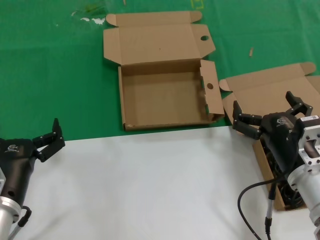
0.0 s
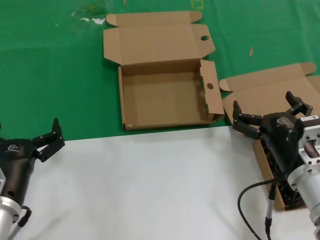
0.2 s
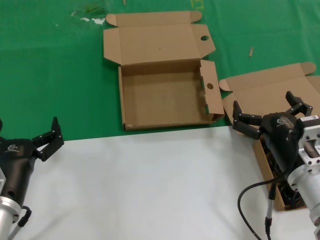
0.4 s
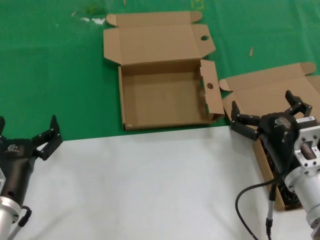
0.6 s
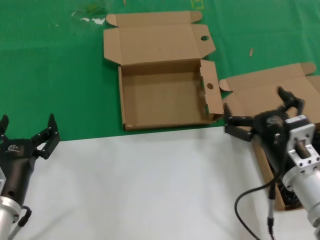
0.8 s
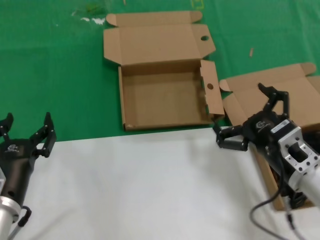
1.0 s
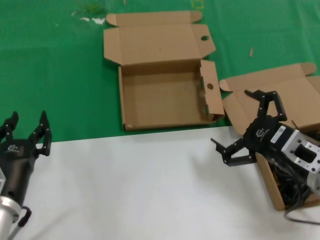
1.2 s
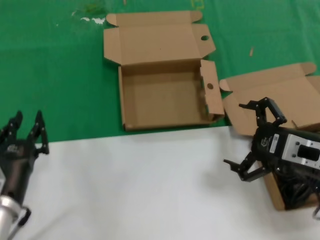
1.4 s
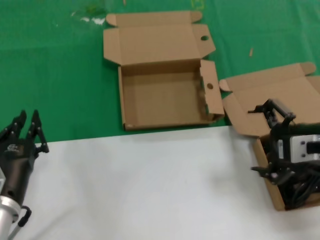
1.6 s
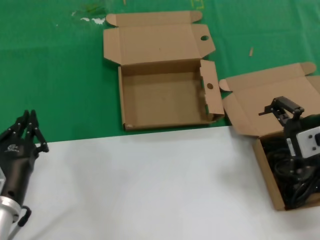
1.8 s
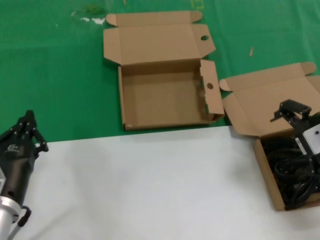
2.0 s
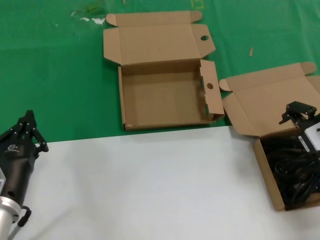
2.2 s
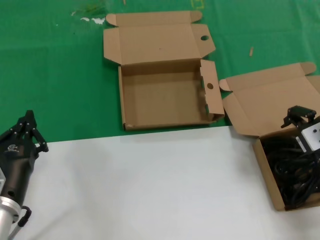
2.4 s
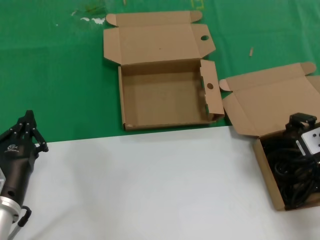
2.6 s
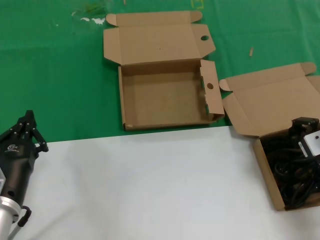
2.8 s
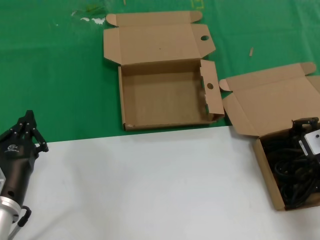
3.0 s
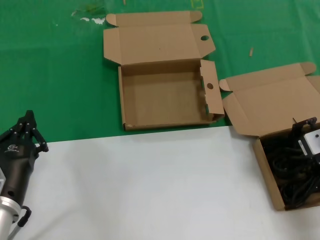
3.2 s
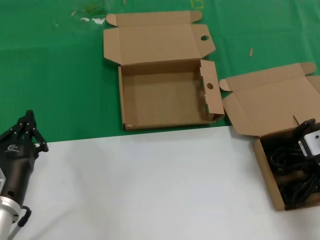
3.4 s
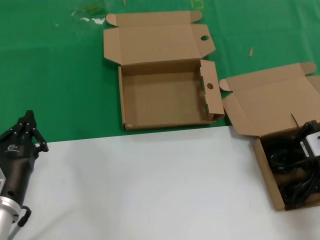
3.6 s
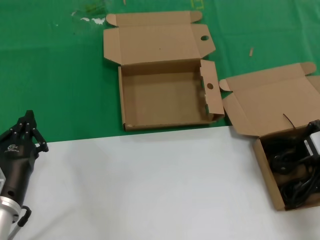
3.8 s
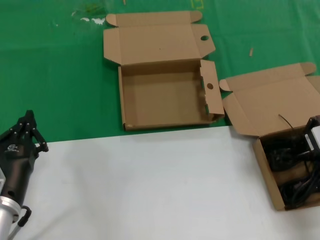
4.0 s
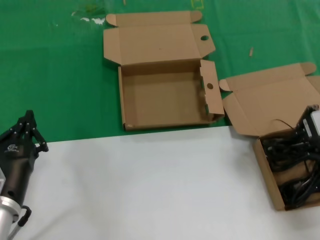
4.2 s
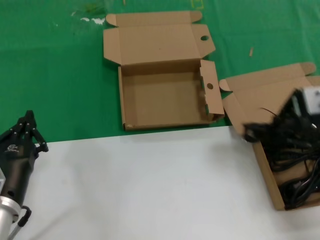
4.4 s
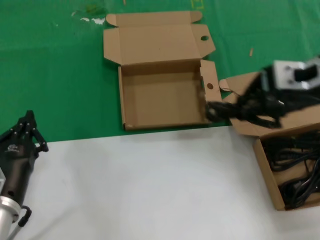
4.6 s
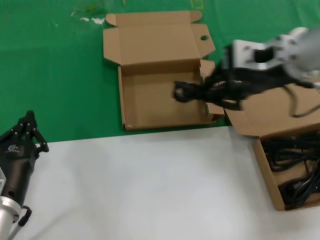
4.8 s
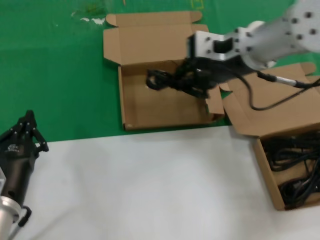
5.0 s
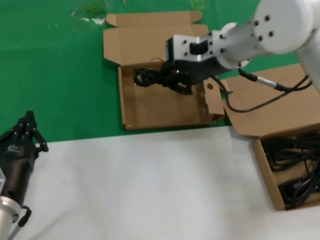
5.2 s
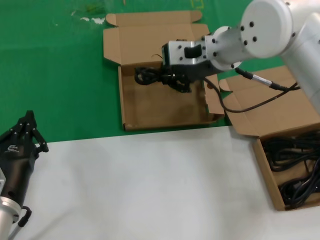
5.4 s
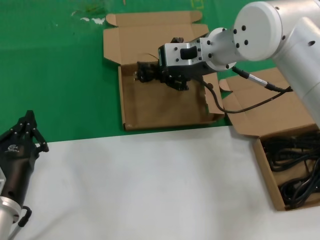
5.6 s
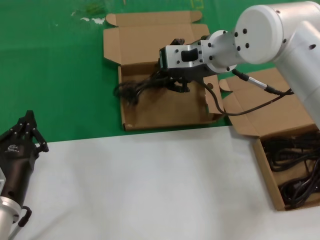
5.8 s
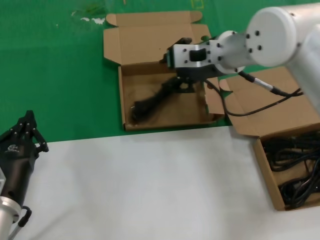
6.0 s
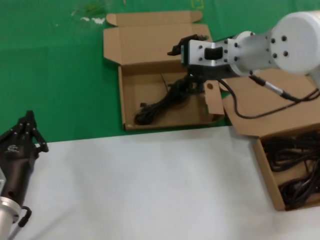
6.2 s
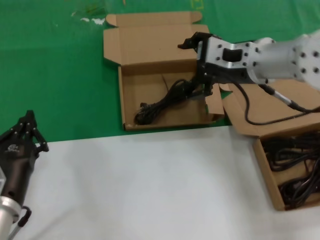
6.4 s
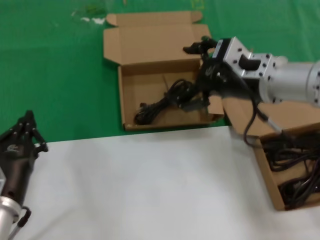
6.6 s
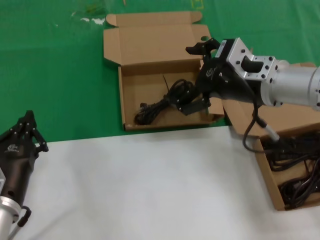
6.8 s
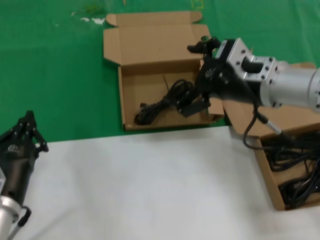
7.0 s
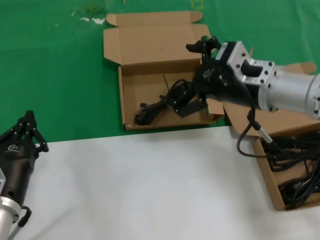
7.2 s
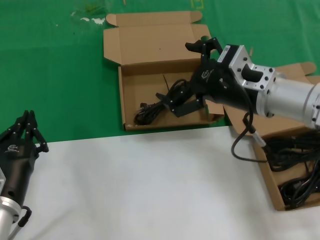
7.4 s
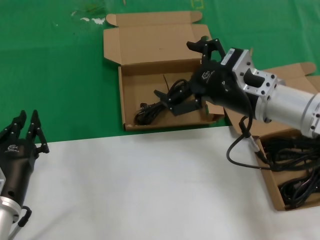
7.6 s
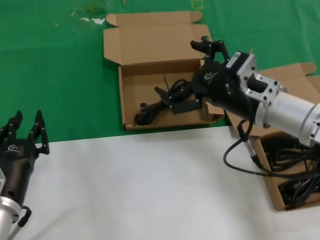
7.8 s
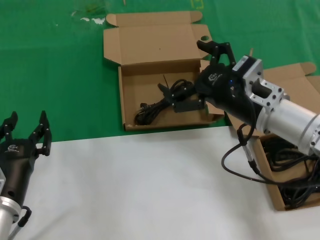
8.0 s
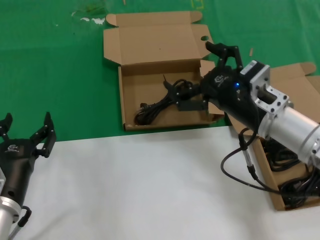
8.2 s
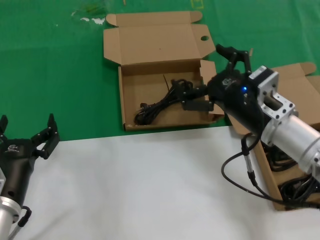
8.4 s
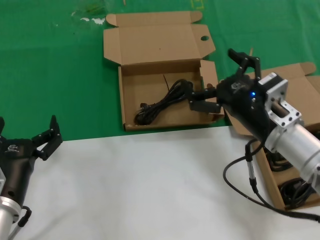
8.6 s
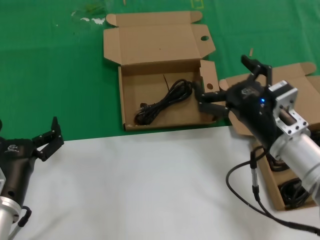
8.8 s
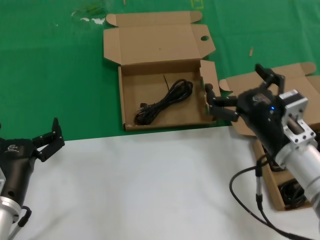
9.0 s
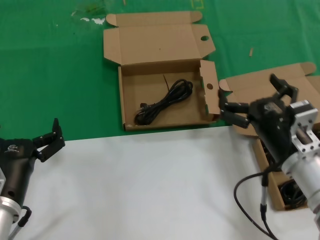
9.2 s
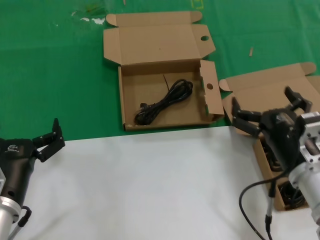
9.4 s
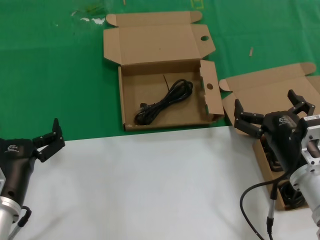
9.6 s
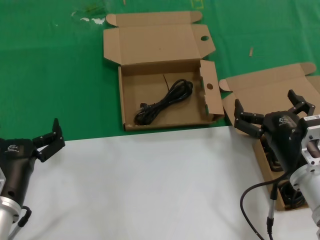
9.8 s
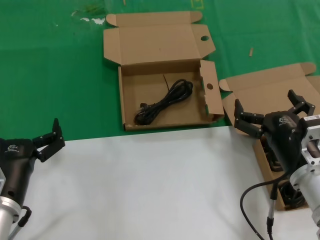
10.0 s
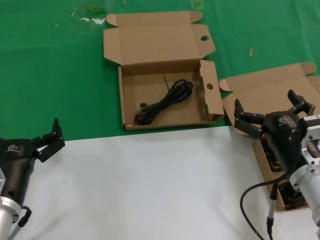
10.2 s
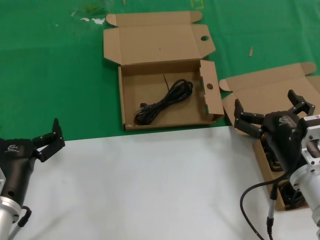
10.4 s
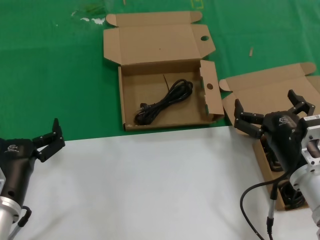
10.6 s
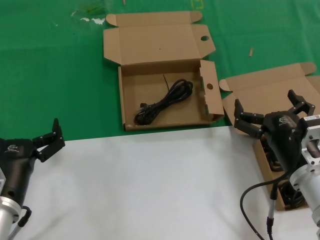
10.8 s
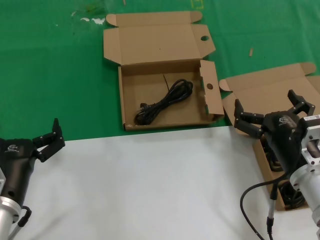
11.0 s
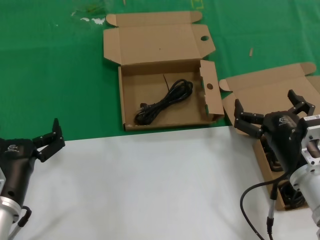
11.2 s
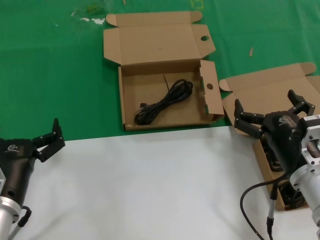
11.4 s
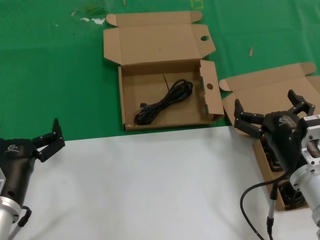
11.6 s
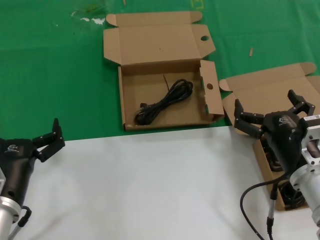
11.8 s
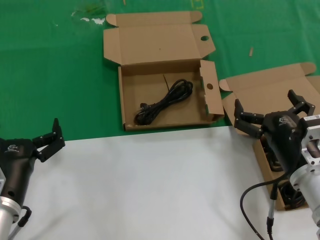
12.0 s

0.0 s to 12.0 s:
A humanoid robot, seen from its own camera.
Task of the whole recording: take the parts from the box containing them and put them into an empty box.
Step, 0.0 to 3.4 s: Grasp the data cable.
Step, 3.6 to 6.2 s: Place the data cable in the another box.
0.0 to 1.6 s: The right hand moves upward and to the right, about 15 cm.
1.6 to 3.0 s: The right hand moves forward, about 10 cm.
3.0 to 4.4 s: The right hand shifts some 10 cm upward.
4.4 to 6.0 s: The right hand heads to the left and forward, covering approximately 20 cm.
6.0 to 7.6 s: The right hand travels backward, to the right and downward by approximately 15 cm.
7.6 to 9.0 s: The right hand moves downward and backward, approximately 10 cm.
9.0 to 10.4 s: The right hand changes place by some 5 cm.
10.4 to 12.0 s: Both hands stay about where they are.

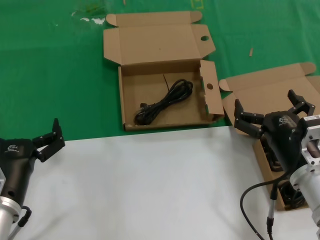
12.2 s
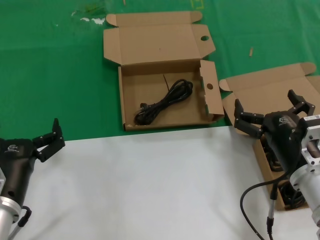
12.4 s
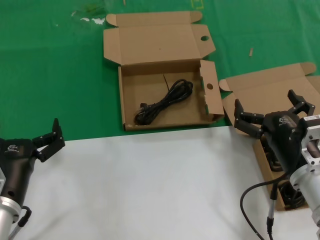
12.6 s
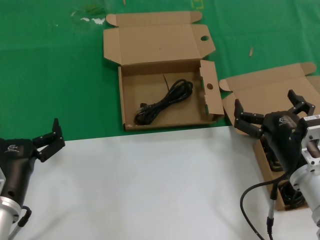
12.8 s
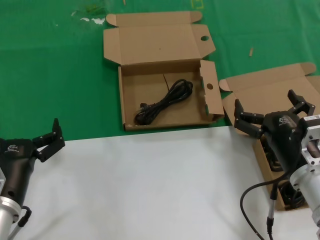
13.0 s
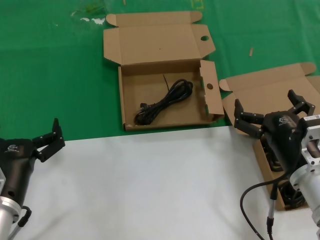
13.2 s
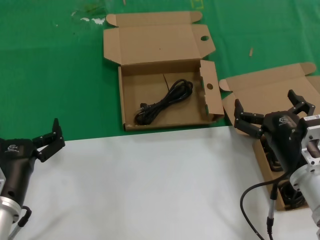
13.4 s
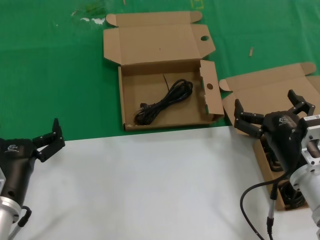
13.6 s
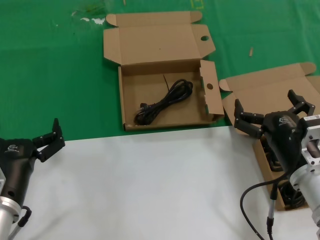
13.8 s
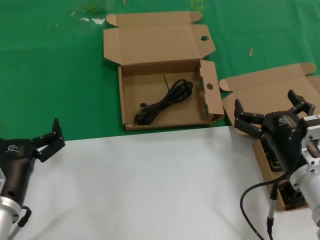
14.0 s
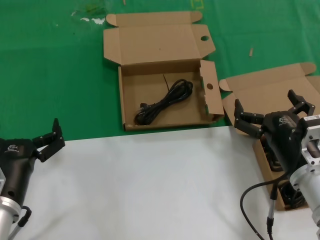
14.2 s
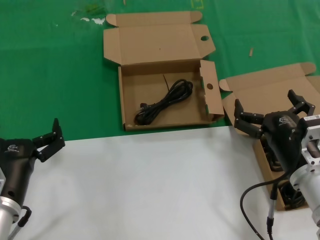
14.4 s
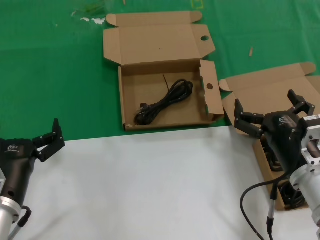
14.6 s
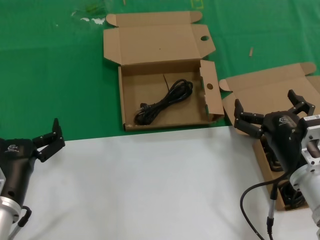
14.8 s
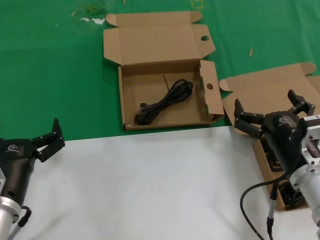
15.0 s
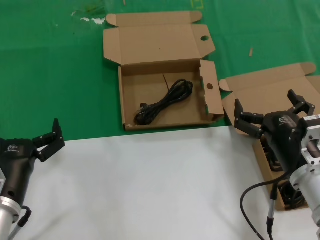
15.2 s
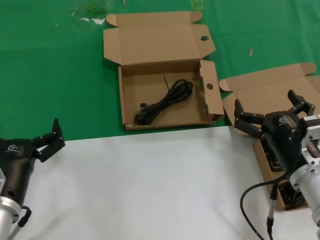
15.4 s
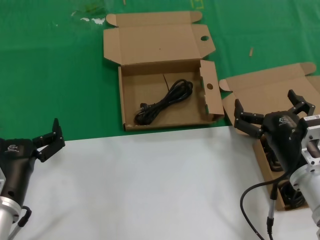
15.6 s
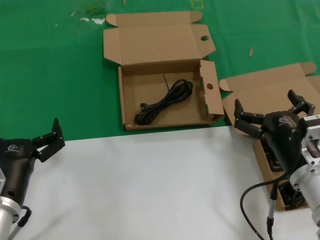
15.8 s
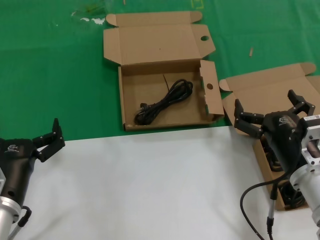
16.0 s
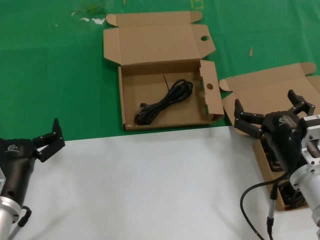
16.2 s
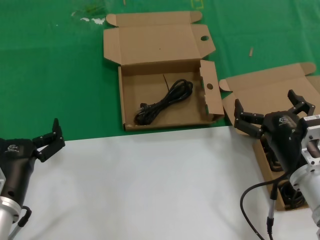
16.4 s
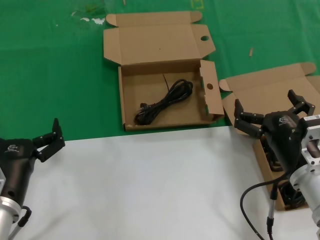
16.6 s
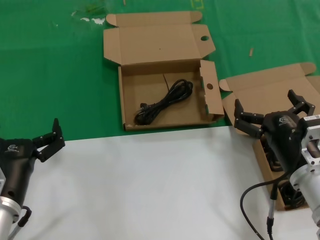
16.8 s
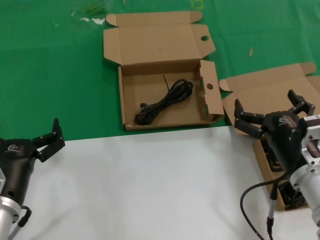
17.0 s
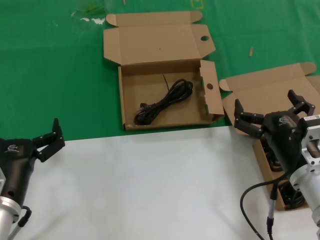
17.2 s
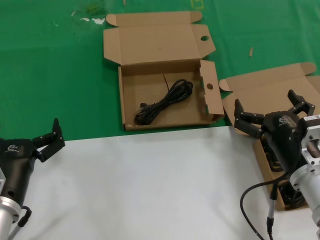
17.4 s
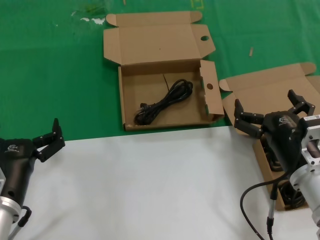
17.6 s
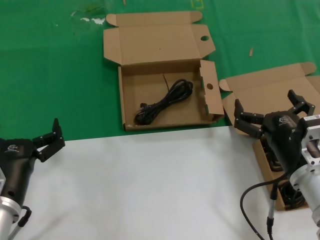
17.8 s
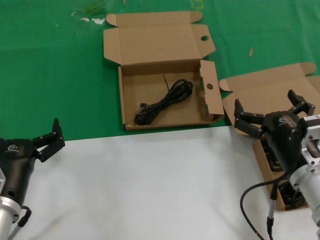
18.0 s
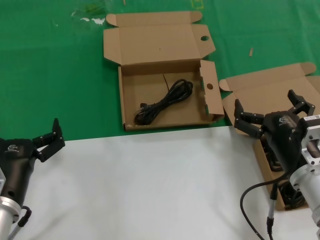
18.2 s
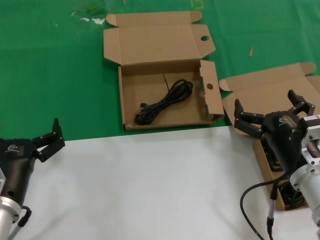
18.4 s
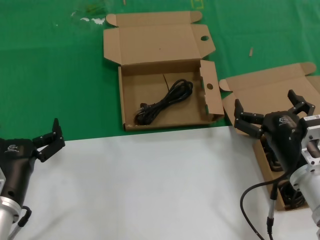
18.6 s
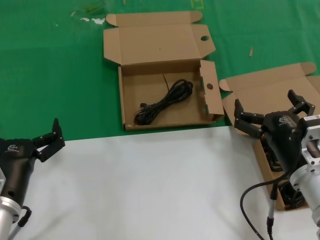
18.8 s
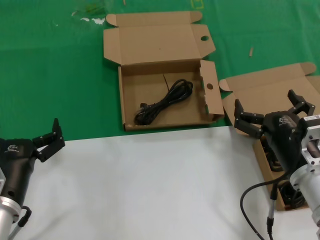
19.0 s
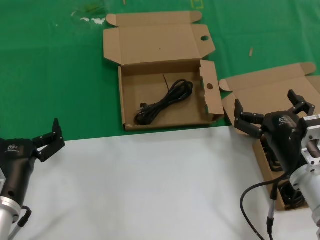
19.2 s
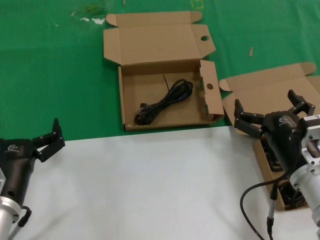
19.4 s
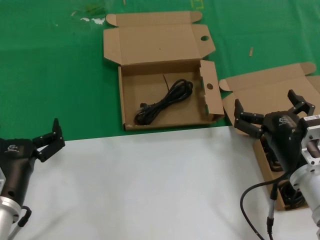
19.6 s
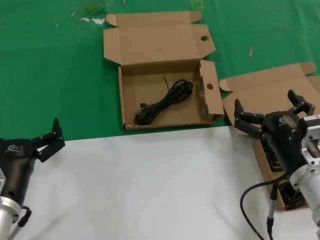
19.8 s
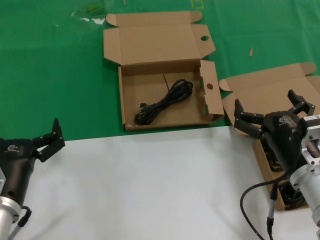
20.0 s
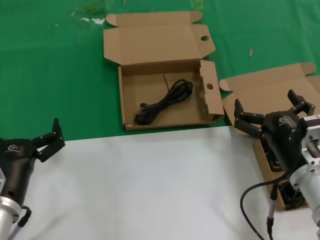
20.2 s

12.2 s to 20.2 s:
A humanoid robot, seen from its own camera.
Task of the whole recording: take the parts from the box containing them and put them into an empty box.
12.2 to 20.2 s: Both hands stay put.

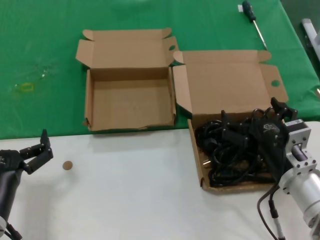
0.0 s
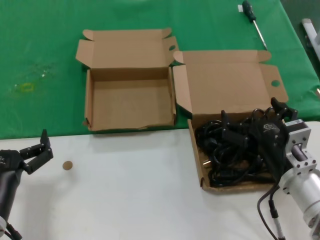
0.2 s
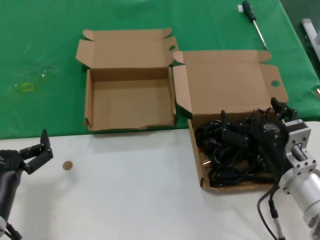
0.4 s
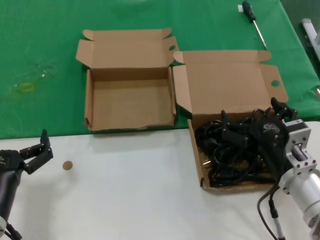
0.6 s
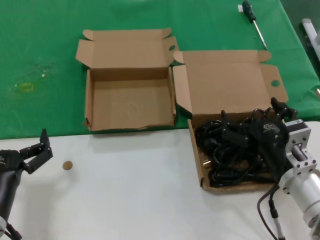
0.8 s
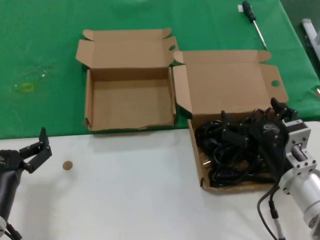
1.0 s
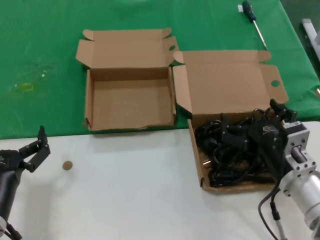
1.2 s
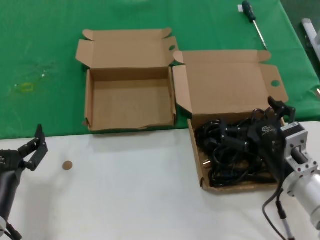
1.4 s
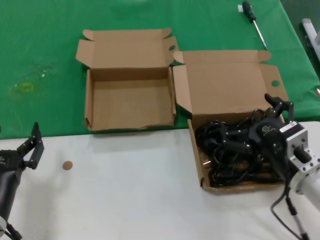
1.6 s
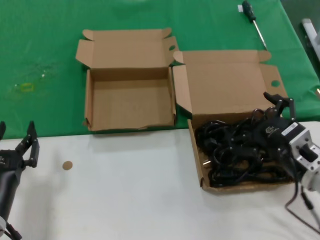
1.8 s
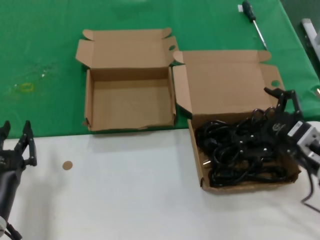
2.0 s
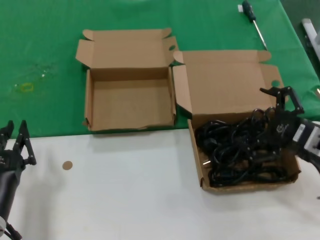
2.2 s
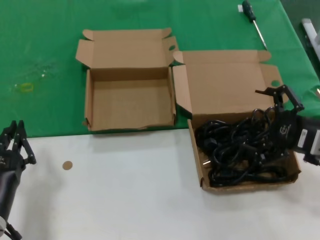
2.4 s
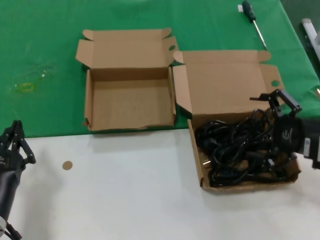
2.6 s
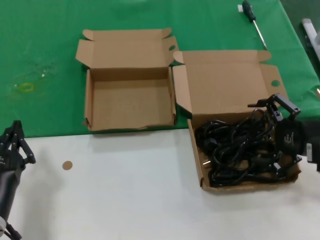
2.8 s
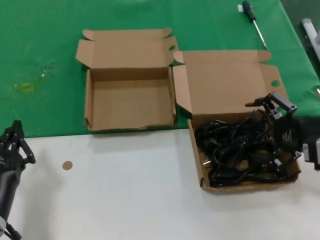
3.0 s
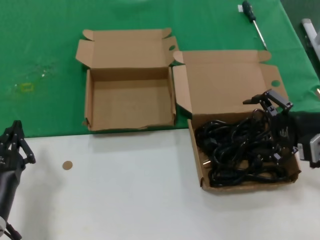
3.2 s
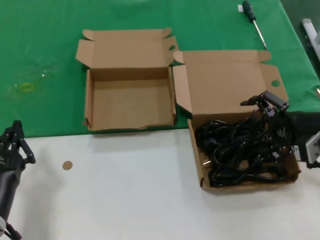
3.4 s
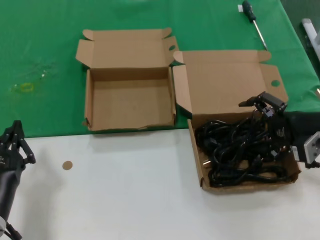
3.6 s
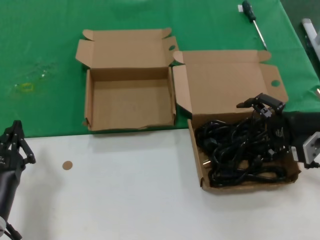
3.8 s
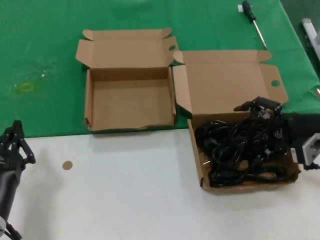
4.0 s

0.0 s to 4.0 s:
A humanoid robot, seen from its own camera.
Task of the whole recording: take the parts from the box containing them and put them into an empty box.
0.0 to 1.4 s: There are only small adjustments of the hands.
1.4 to 2.6 s: The right hand heads to the right and upward, covering approximately 15 cm.
2.6 to 4.0 s: The right hand shifts about 5 cm forward.
